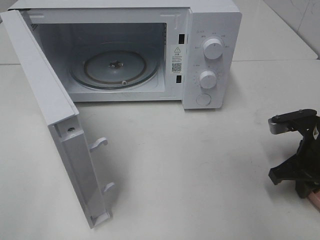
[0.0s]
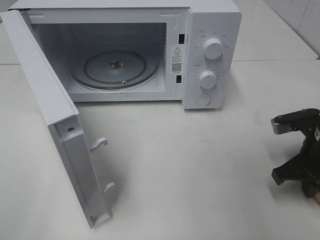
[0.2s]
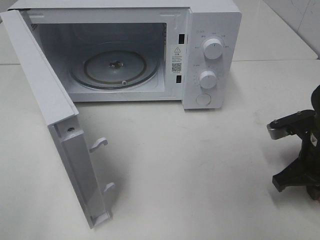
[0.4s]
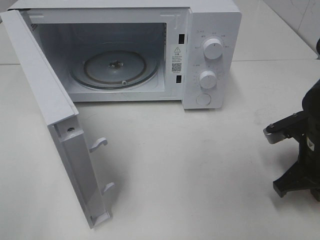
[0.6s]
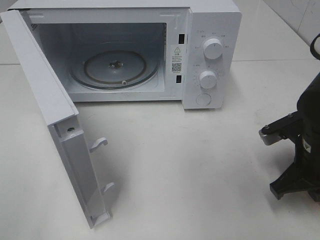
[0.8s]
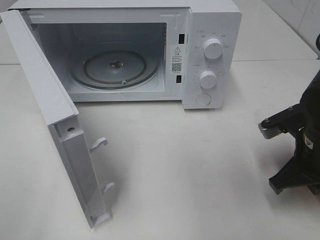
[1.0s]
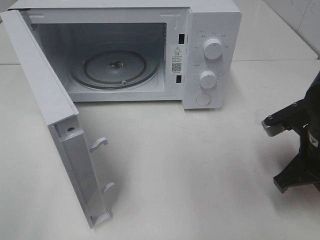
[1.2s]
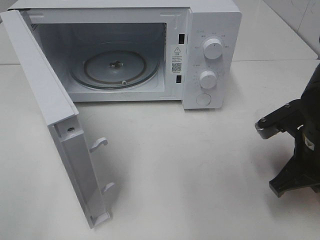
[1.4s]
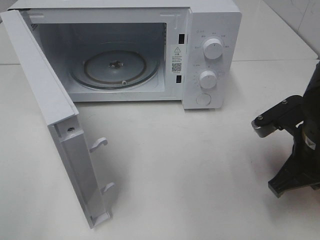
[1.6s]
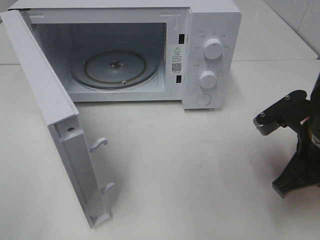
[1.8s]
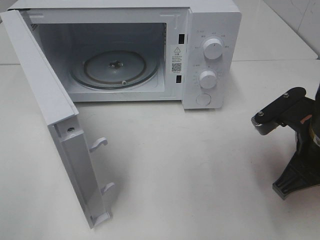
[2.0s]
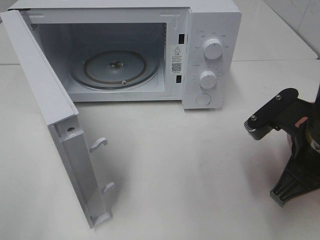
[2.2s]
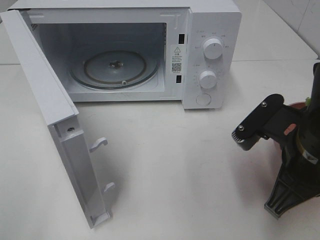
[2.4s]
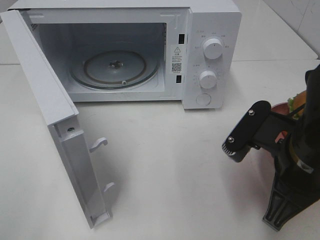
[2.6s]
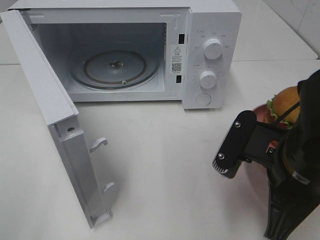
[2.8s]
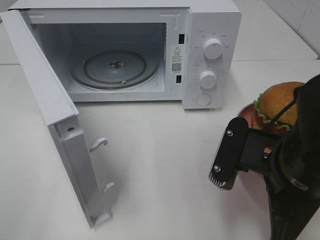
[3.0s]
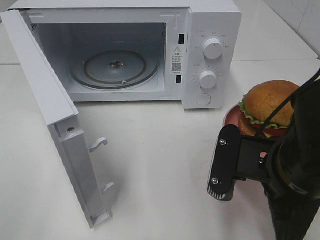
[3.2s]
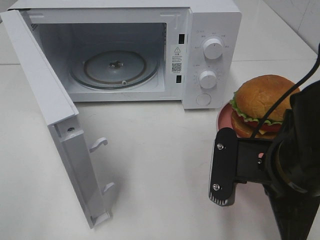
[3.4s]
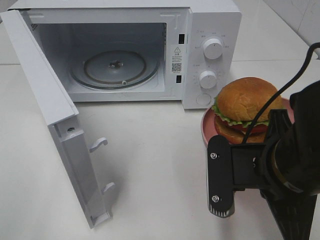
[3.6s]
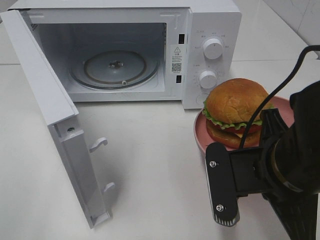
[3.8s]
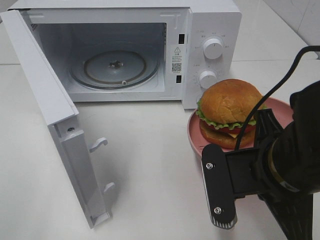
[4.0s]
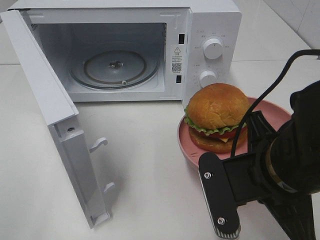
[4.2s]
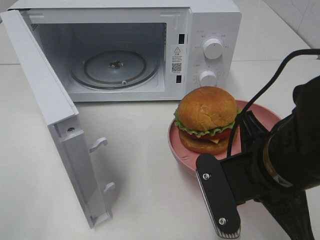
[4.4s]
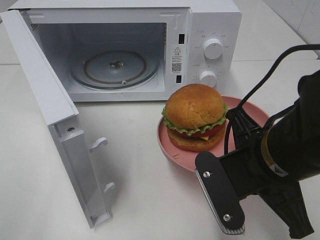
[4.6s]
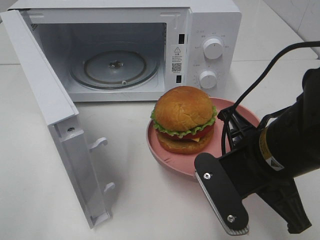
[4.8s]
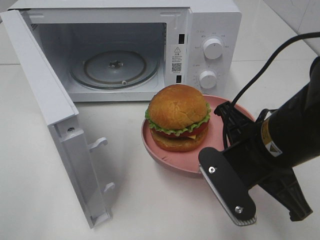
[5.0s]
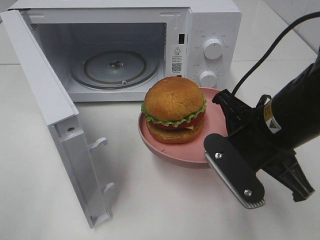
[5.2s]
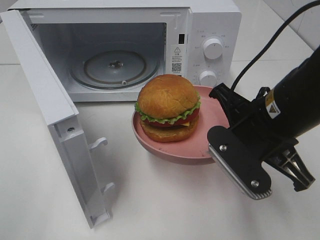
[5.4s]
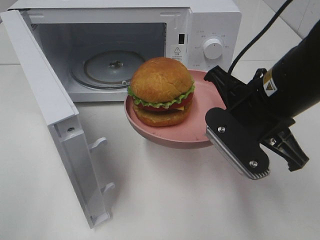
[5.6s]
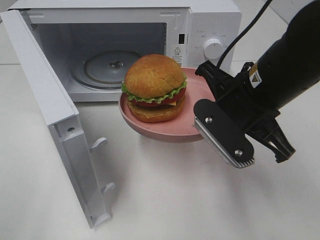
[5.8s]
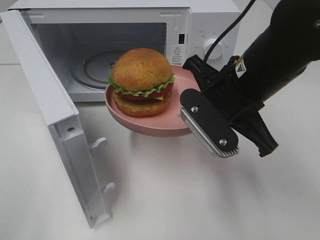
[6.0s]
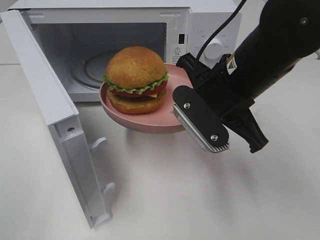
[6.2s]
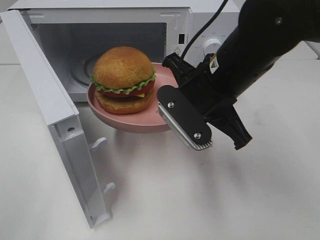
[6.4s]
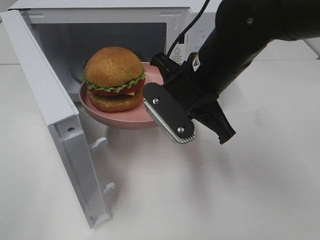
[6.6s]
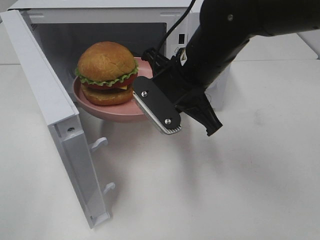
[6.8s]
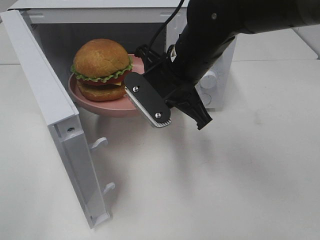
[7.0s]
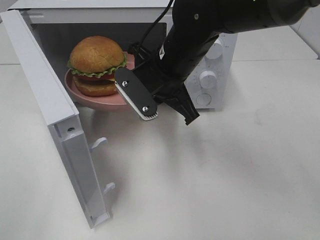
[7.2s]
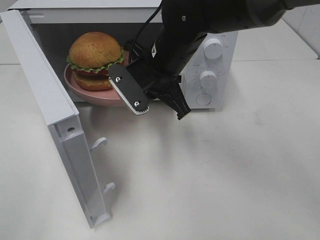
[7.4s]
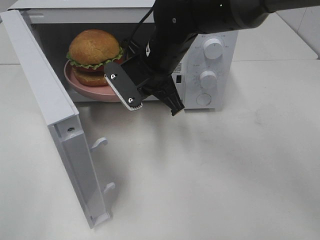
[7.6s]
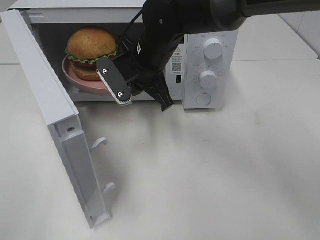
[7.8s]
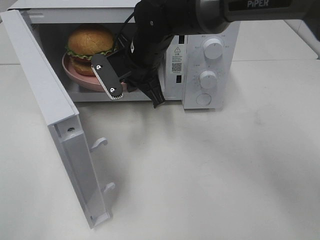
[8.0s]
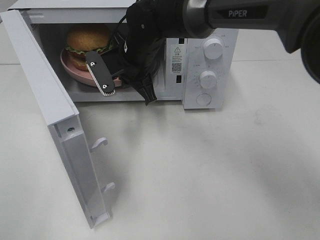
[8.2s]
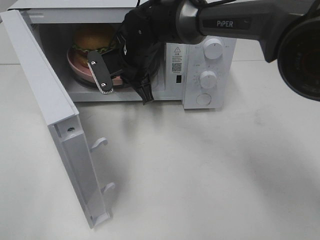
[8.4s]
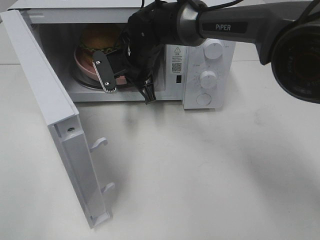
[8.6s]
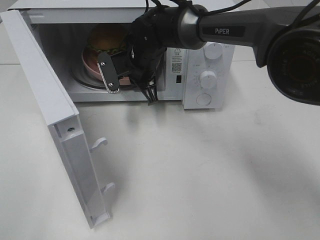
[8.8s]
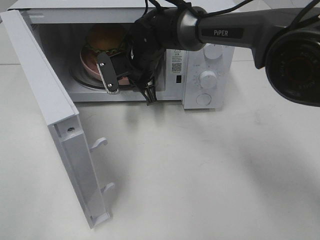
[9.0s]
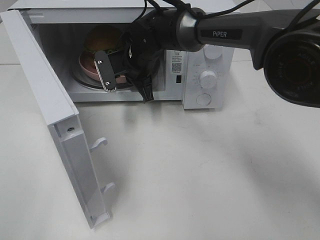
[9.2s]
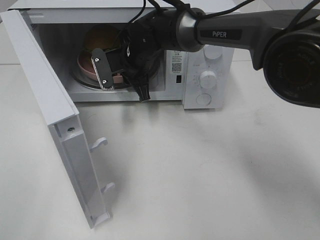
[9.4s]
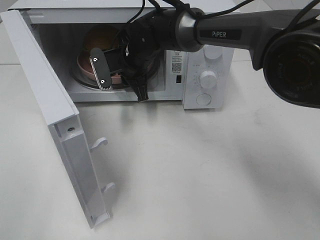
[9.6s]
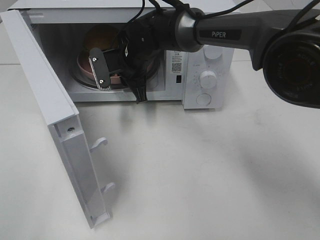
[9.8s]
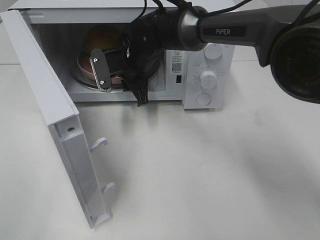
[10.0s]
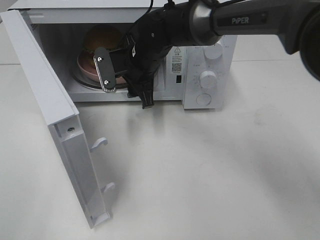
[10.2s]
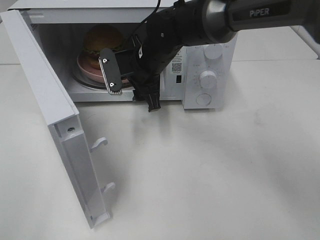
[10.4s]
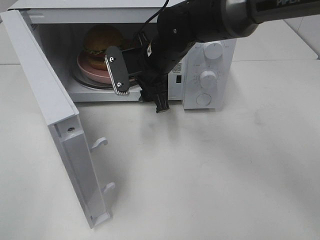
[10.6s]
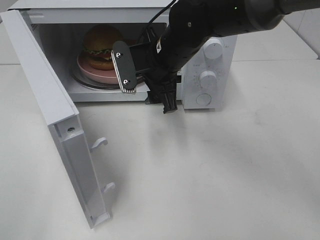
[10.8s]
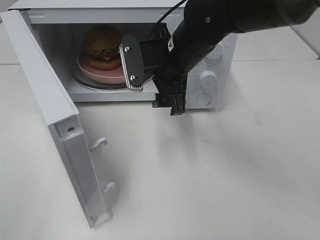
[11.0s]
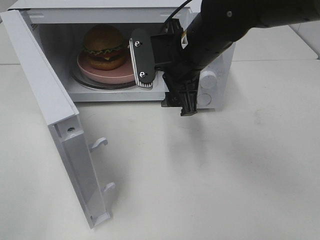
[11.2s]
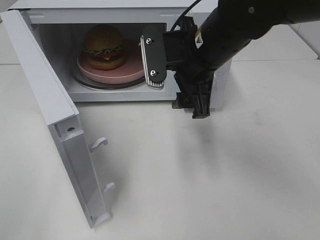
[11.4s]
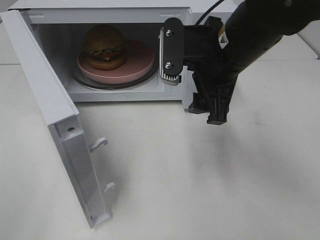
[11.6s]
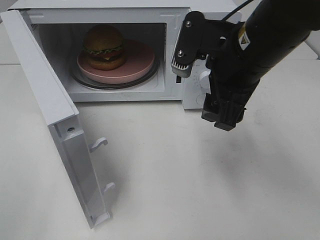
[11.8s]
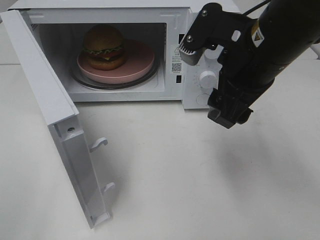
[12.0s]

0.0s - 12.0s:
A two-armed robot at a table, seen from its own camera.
Task of the whole recording: Heat the burger.
Step, 0.6s - 10.4s: Right hand: place the plate in the microwave.
0.0s - 1.6s: The right gripper heads to the left, covering roughly 5 cm.
1.6s - 3.0s: The right gripper shifts some 10 cm to the left and backward.
4.4s - 6.0s: The right gripper moves forward, roughly 10 cm.
6.0s - 7.6s: The right gripper is displaced forward and to the left by about 15 cm.
7.6s - 9.0s: The right gripper travels forward by about 10 cm.
9.0s - 10.4s: The right gripper shifts by approximately 5 cm, and opens.
10.4s - 12.0s: The right gripper is displaced backward, to the right and upward by about 20 cm.

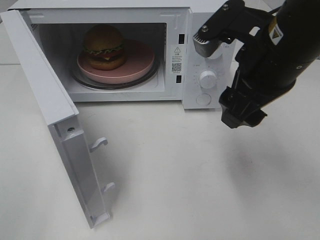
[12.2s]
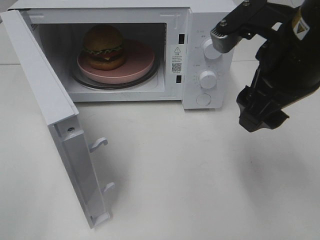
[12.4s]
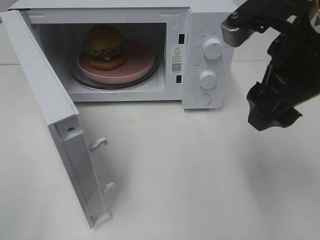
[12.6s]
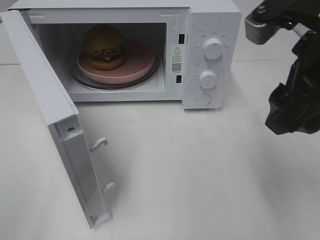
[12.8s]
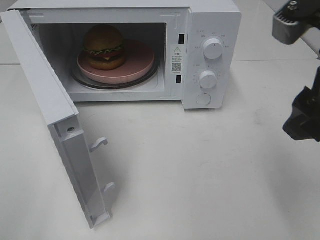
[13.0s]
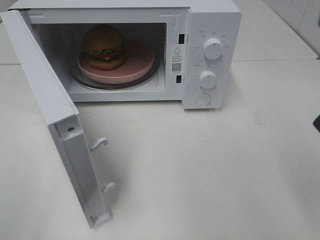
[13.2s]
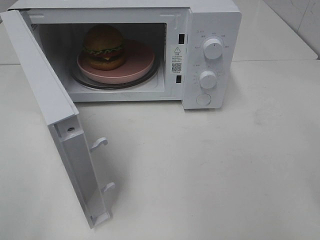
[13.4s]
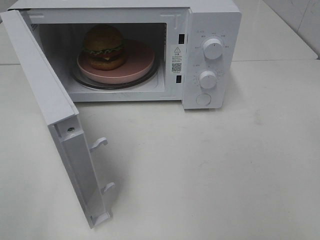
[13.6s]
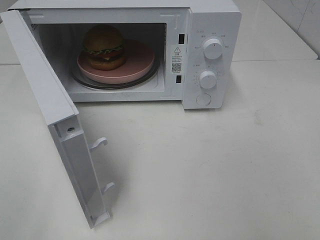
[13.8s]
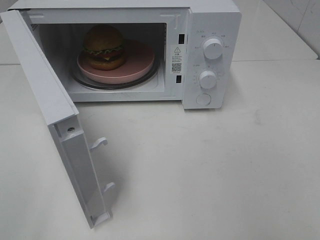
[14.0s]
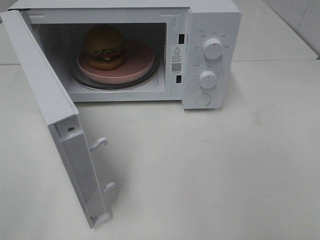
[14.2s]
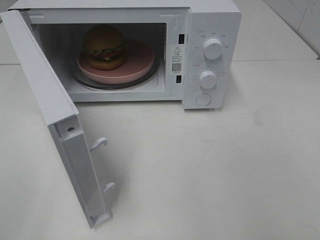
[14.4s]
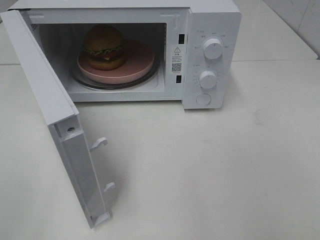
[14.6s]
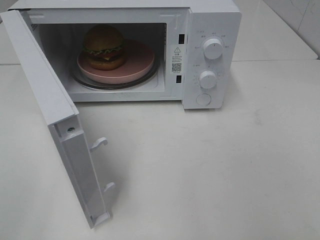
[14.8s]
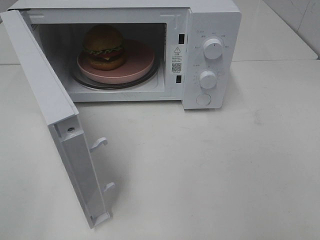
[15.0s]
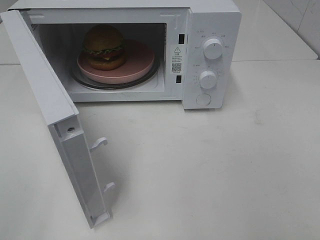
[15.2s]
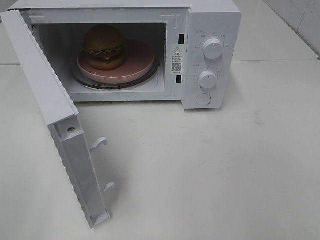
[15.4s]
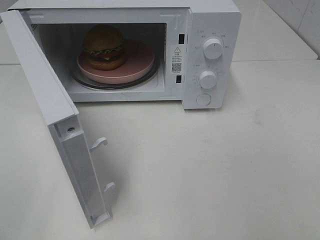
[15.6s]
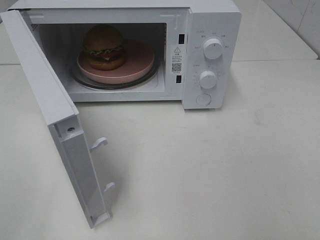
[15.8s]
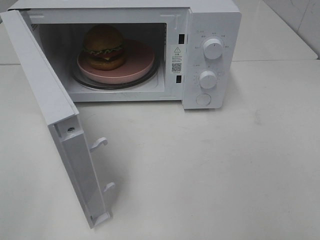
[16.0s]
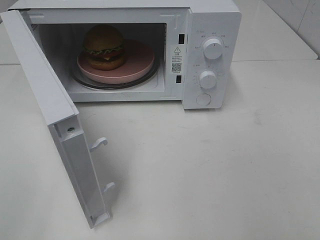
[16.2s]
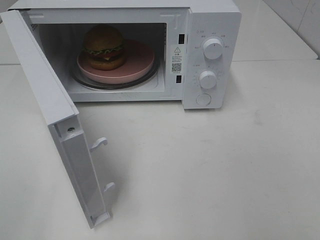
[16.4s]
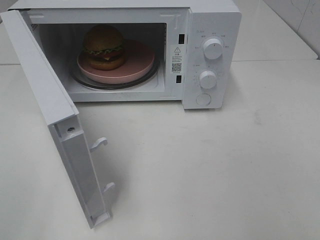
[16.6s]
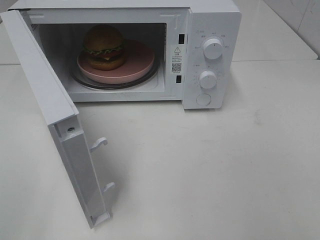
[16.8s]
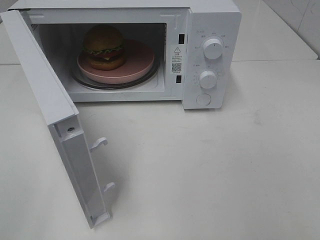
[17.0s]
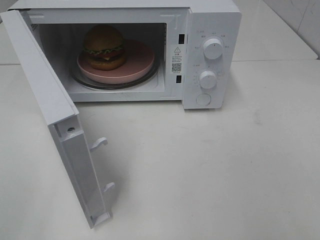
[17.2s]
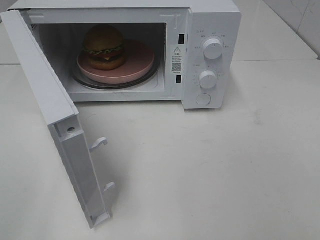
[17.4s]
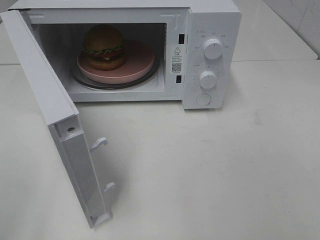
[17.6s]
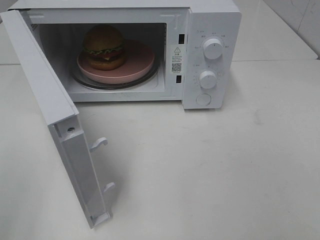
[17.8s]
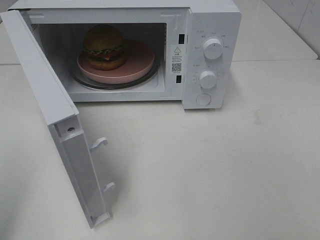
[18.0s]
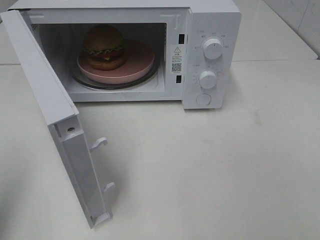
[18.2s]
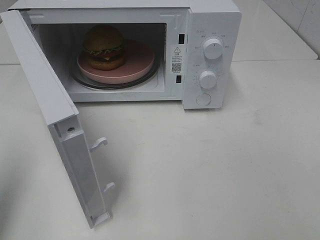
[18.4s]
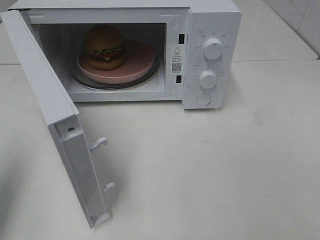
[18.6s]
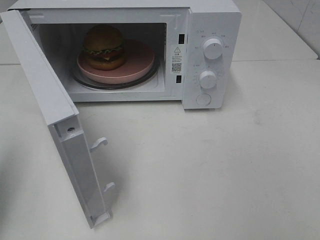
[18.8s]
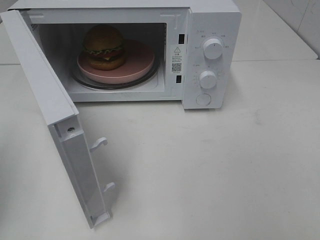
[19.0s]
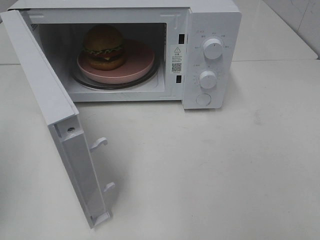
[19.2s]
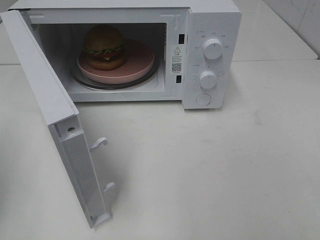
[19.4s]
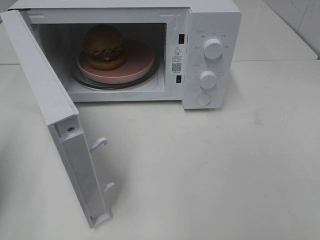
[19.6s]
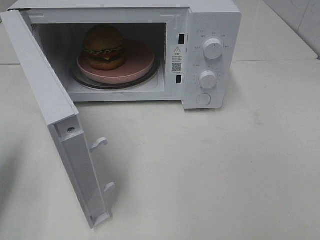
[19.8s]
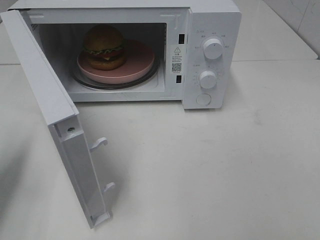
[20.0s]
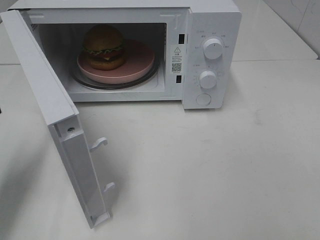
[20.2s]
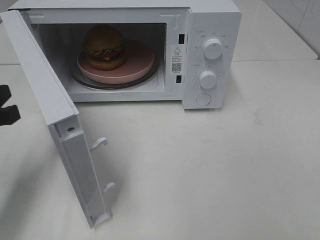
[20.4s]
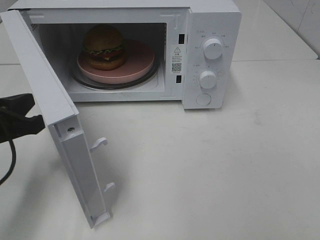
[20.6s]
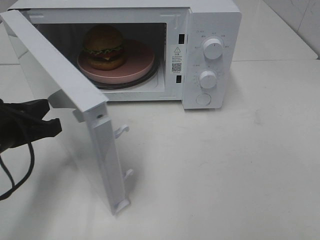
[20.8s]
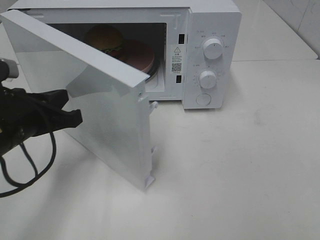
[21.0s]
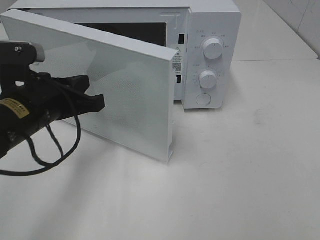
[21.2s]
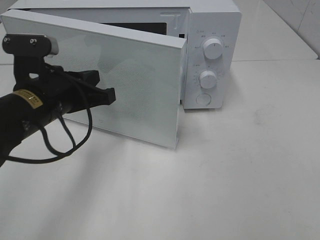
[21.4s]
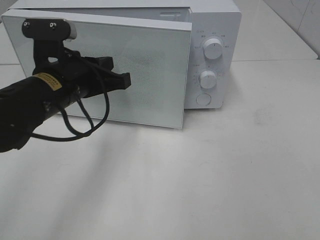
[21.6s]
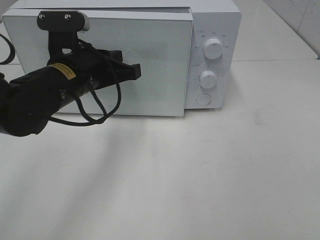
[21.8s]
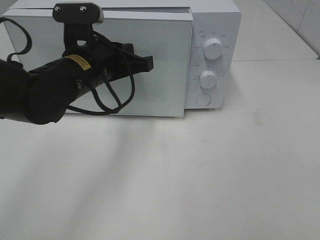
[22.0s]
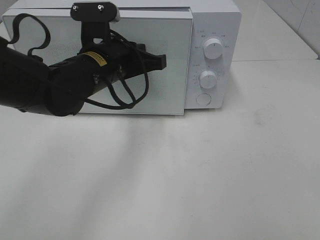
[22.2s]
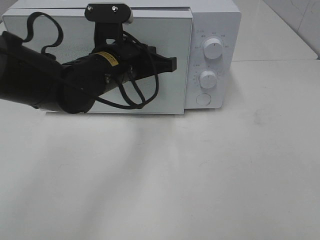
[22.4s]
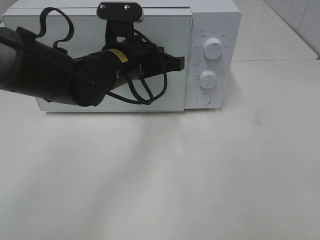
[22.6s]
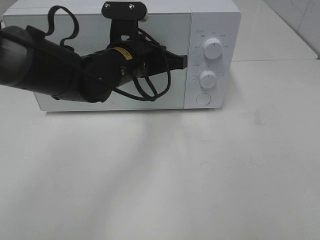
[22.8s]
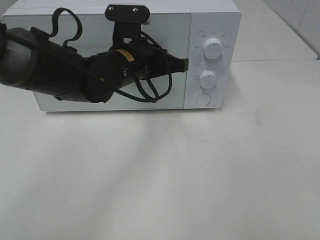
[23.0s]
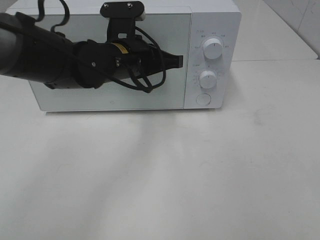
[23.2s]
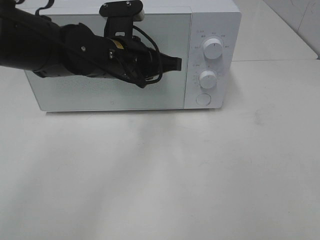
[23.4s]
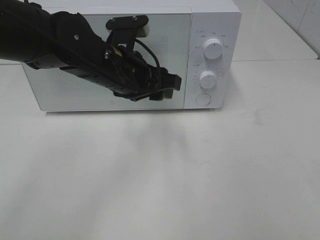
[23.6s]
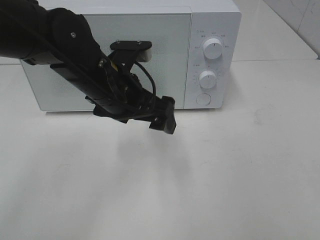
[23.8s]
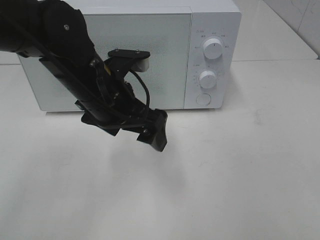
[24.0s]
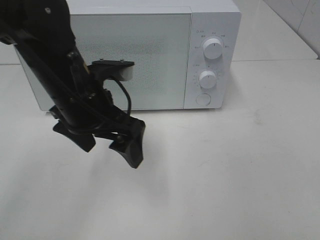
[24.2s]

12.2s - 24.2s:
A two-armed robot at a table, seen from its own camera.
Task of the whole recording: Heat the burger.
Step, 12.2s - 23.6s: Left hand: close the microwave door.
12.2s - 13.8s: The right gripper moves backward and to the right, some 20 cm.
15.2s - 16.6s: Neither gripper changes place.
16.6s - 18.2s: The left gripper is displaced forward by some 10 cm, and closes.
18.2s - 19.8s: The left gripper travels downward and forward by about 15 cm.
19.8s - 21.2s: The left gripper is displaced to the right by some 15 cm.
21.2s - 22.6s: The left gripper heads to the right and forward, covering roughly 15 cm.
22.6s - 24.2s: The left gripper travels backward by about 5 cm, and opens.
